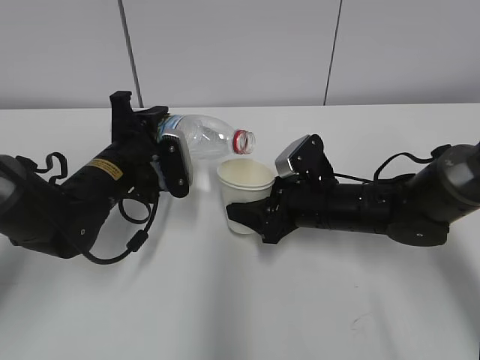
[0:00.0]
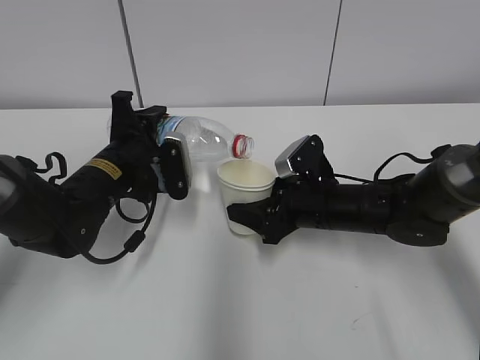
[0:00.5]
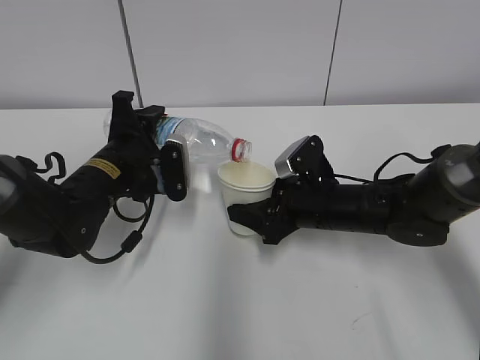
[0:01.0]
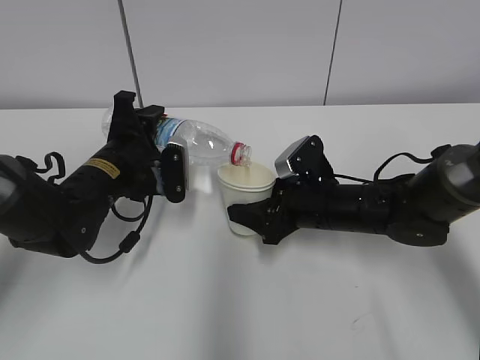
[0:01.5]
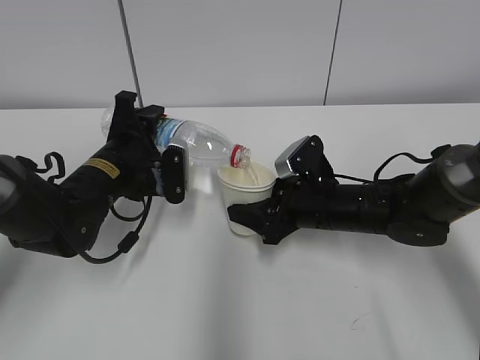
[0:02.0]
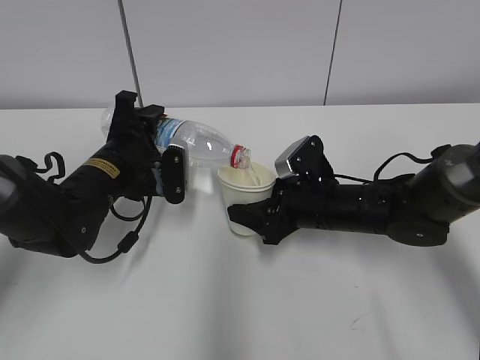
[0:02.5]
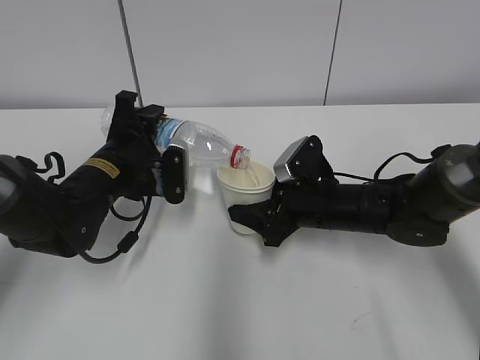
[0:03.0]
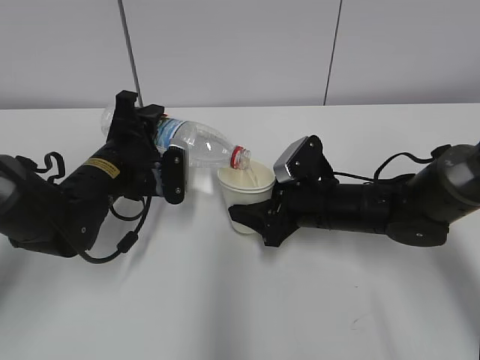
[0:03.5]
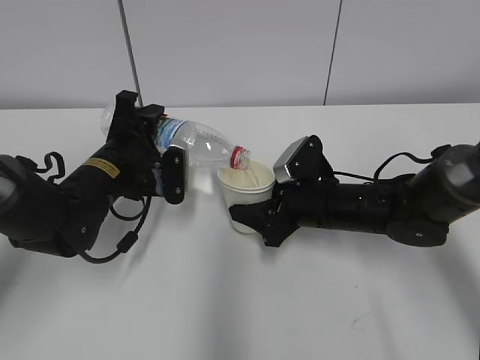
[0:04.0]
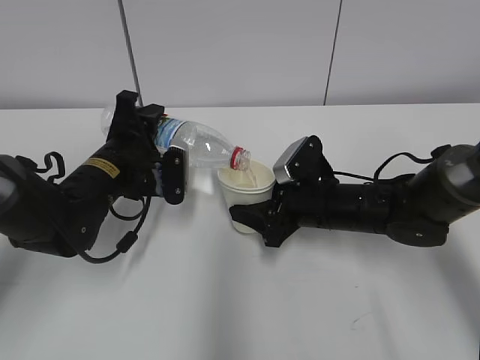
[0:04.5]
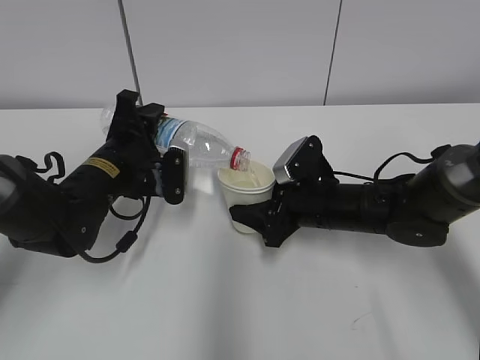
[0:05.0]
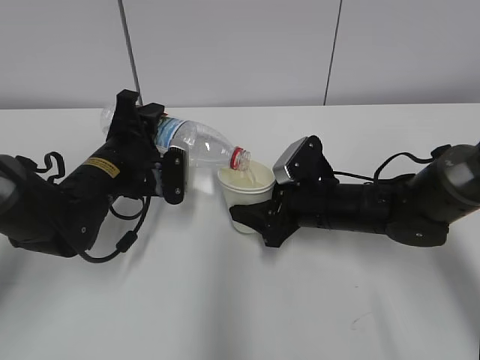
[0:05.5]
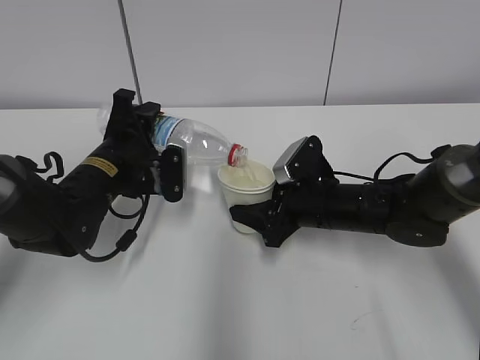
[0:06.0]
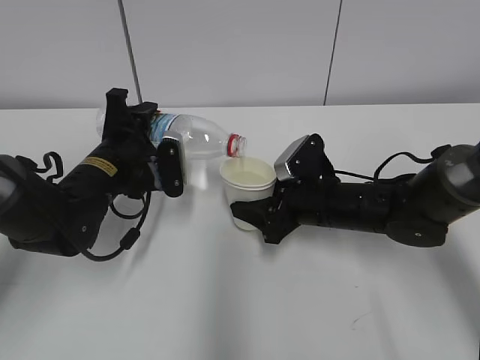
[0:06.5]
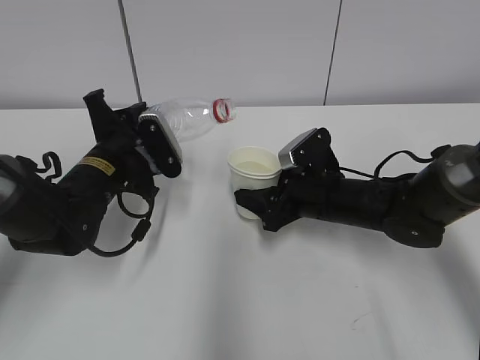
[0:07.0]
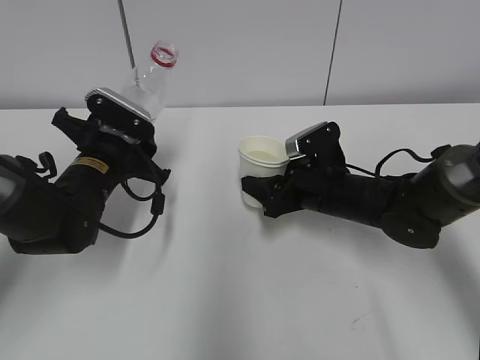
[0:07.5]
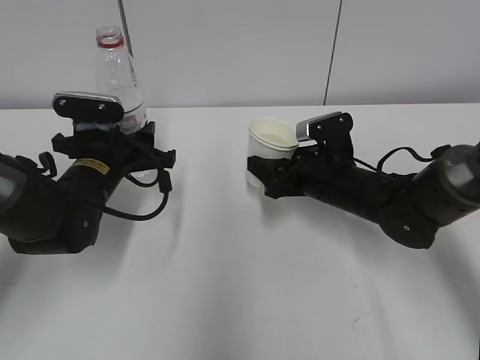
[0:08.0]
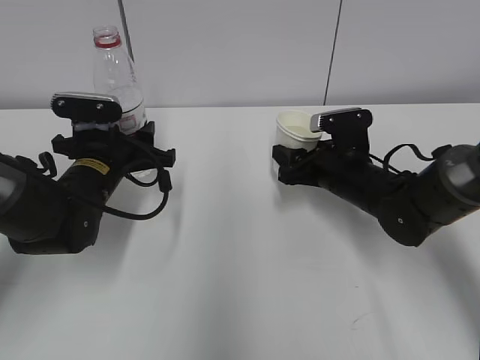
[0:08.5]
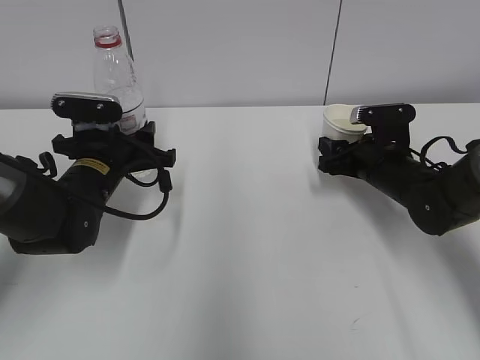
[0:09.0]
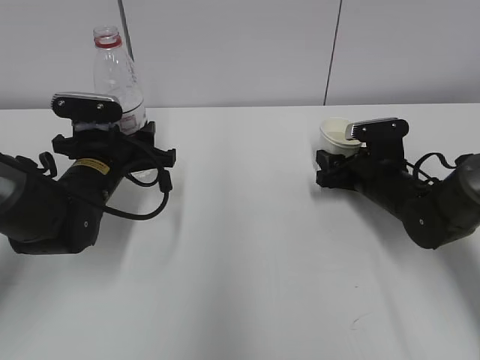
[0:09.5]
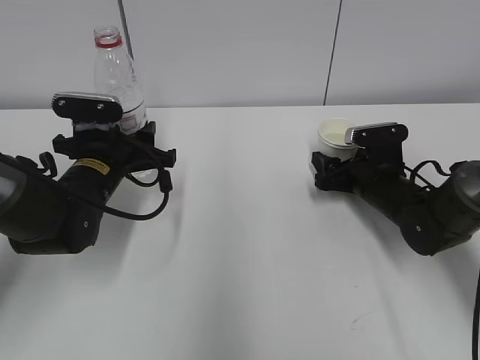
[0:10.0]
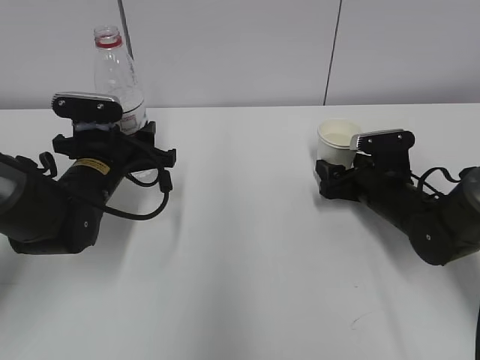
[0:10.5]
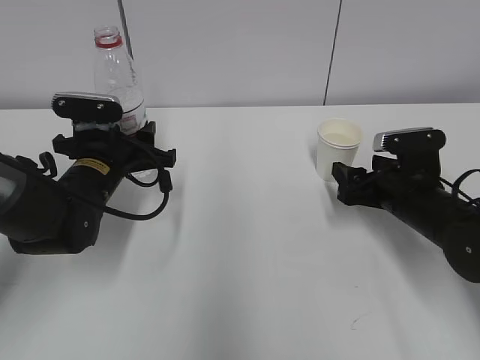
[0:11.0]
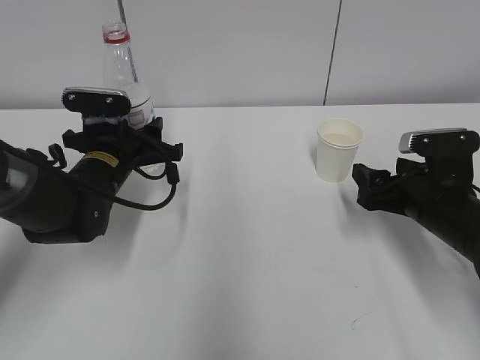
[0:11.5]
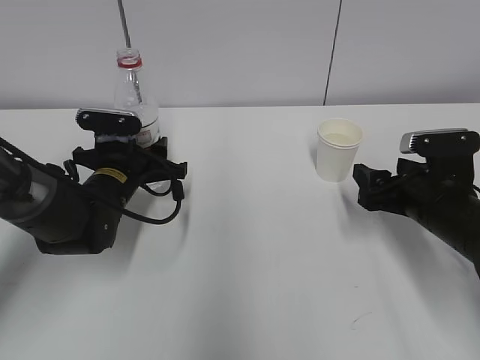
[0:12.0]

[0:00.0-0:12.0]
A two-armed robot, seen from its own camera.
Step, 0:00.0 to 0:03.0: Fill water with the right hand.
Step, 0:00.0 to 0:03.0: Pour water with the left hand.
Step, 0:06.5 to 0:08.5: Place the water bottle with the left hand.
0:00.0 to 0:04.0: The grippers make only small movements.
0:04.0 to 0:06.0: The two grippers keep their place.
0:08.0 to 0:10.0: The right gripper moves to the right, about 10 cm, and opens its fingers.
0:10.0 to 0:12.0: The right gripper moves backward and upward, roughly 10 cm.

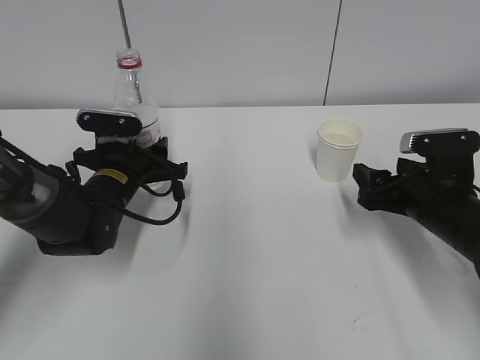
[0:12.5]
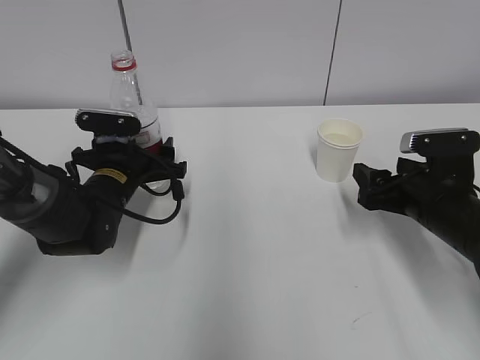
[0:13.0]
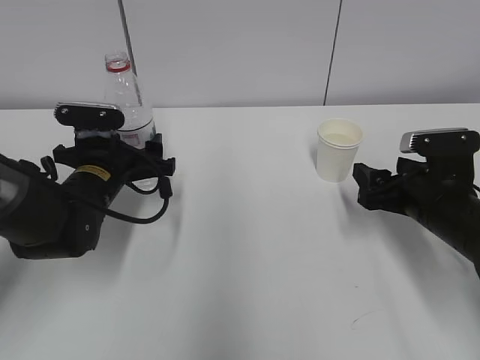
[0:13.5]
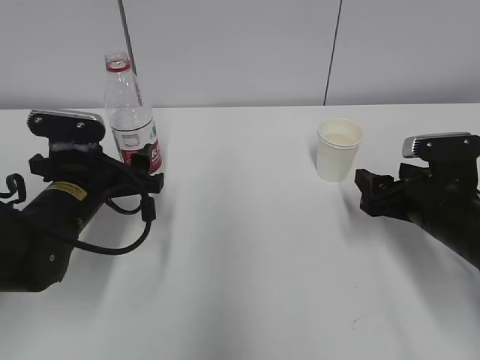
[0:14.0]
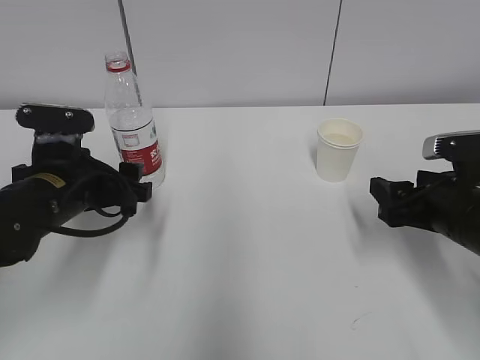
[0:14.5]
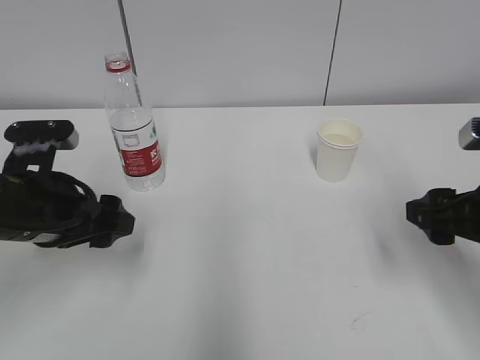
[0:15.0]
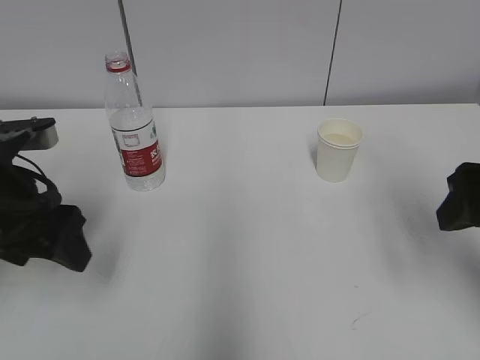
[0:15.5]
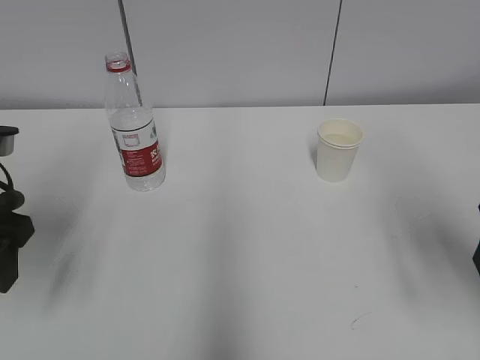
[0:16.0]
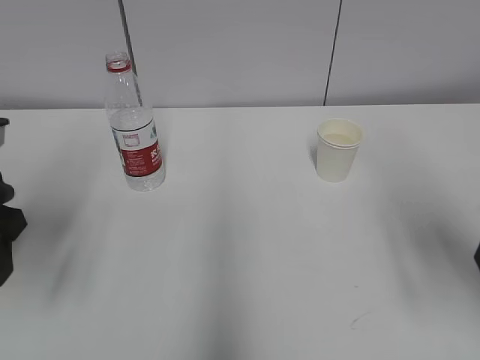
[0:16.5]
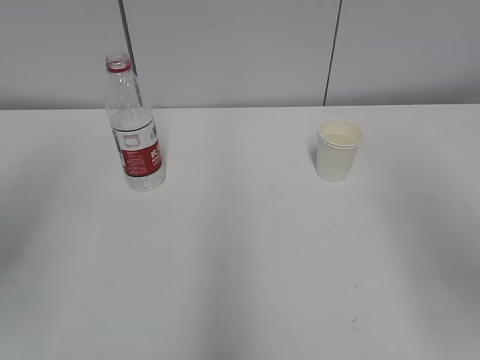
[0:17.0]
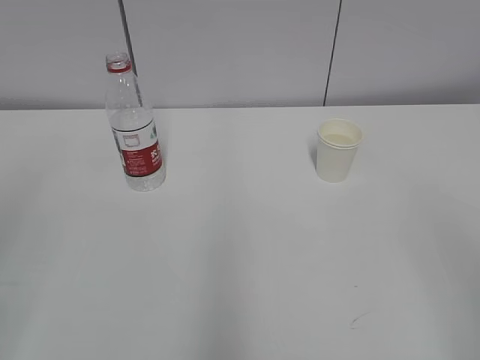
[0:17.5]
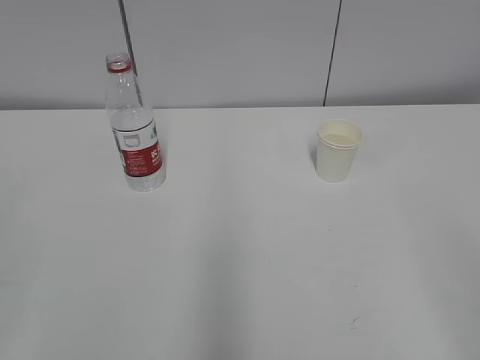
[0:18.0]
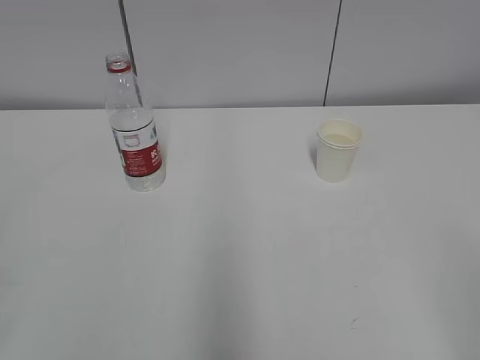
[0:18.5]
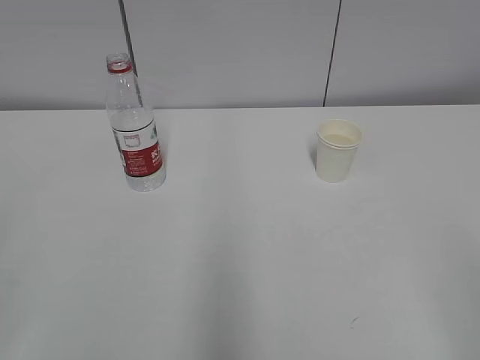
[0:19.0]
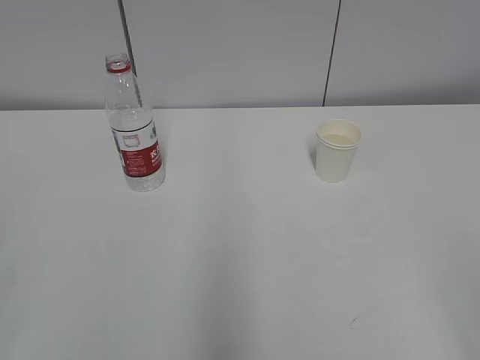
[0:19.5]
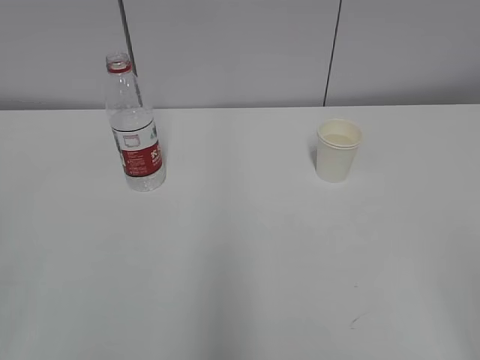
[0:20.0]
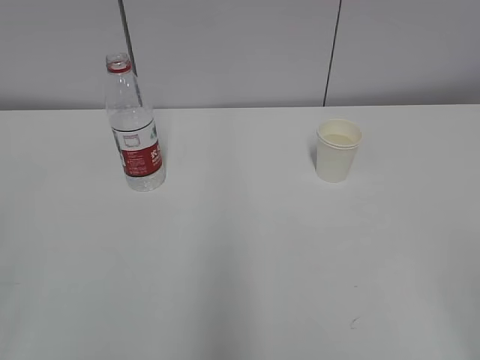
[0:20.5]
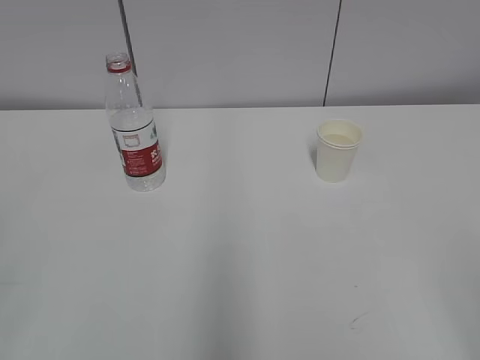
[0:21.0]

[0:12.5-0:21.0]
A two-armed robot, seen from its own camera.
0:12.5 to 0:14.5: The left gripper moves backward and upward, some 10 cm, and opens its fingers.
0:14.5 to 0:16.5: The right gripper is displaced upward and backward by about 15 cm. Meanwhile the left gripper shifts roughly 15 cm upward, to the left and backward.
0:16.5 to 0:19.0: Both grippers travel together backward, some 20 cm.

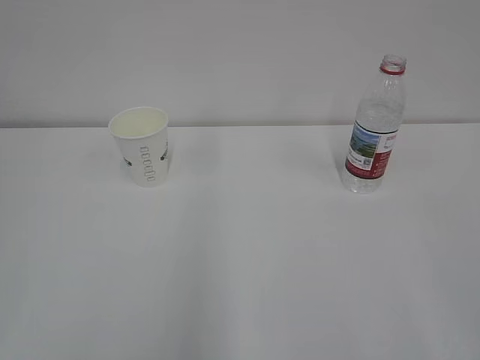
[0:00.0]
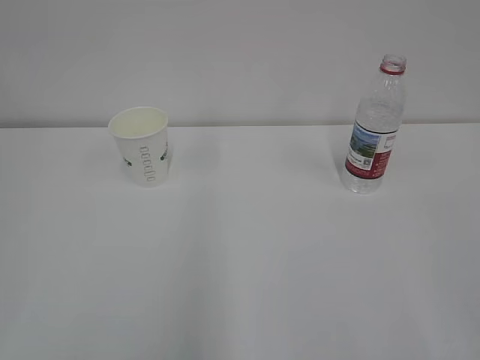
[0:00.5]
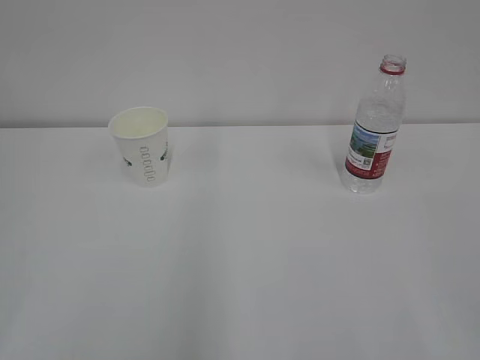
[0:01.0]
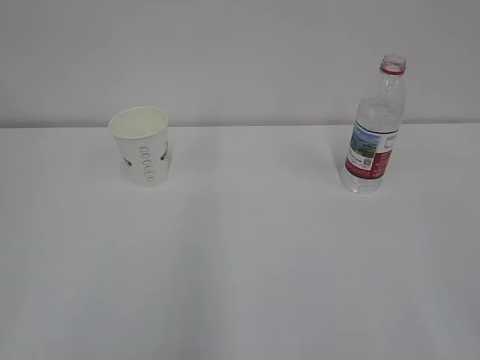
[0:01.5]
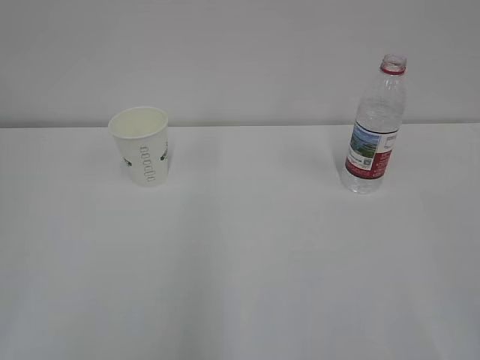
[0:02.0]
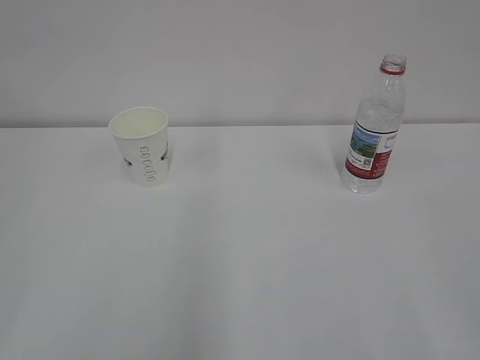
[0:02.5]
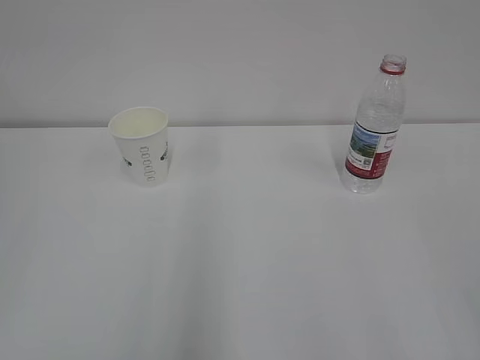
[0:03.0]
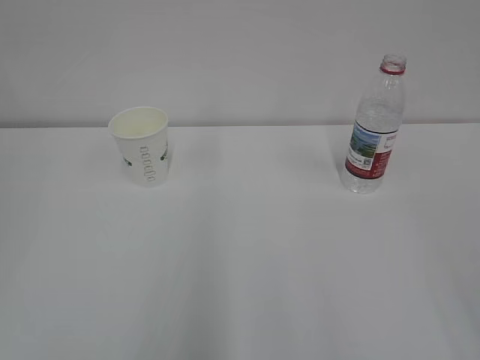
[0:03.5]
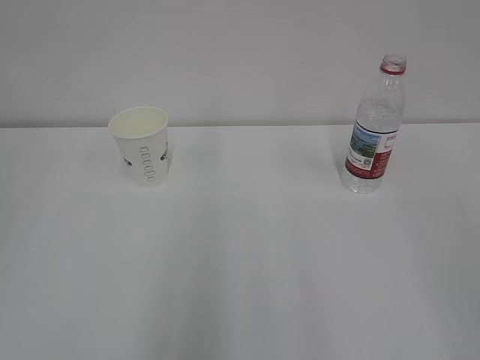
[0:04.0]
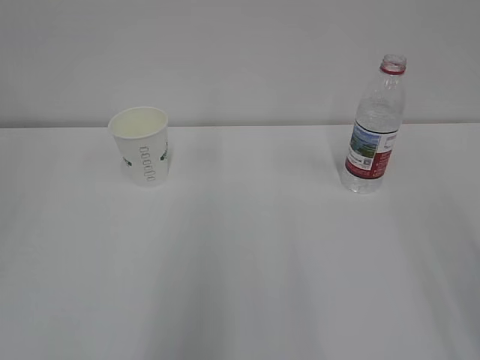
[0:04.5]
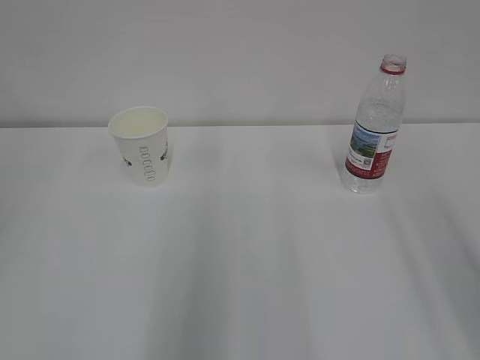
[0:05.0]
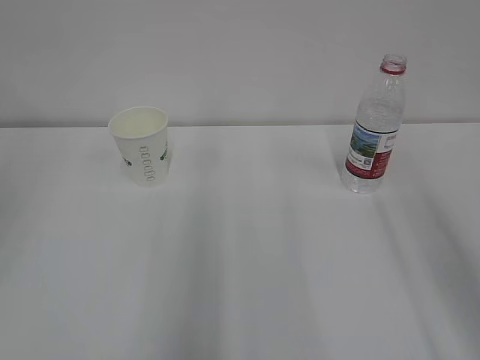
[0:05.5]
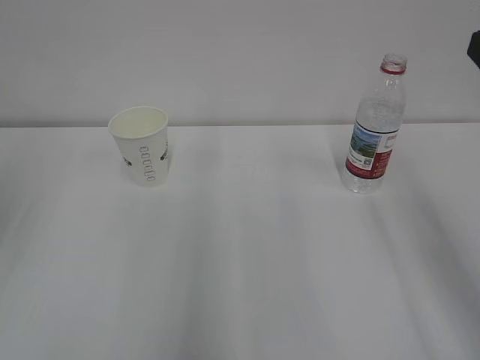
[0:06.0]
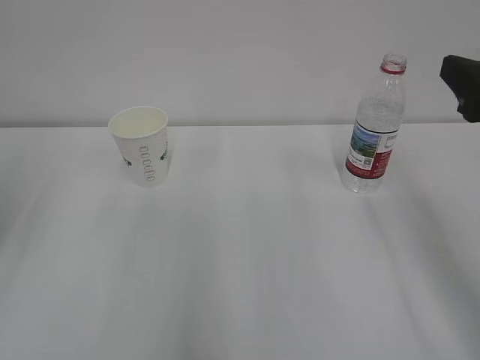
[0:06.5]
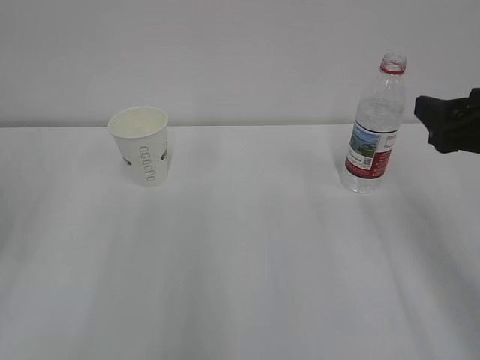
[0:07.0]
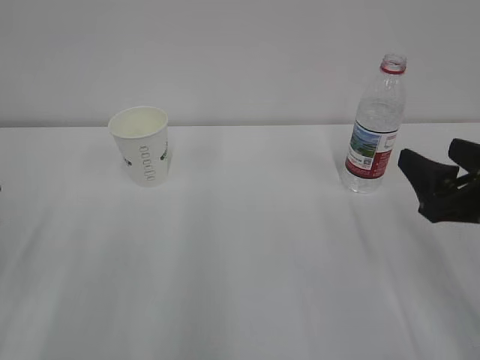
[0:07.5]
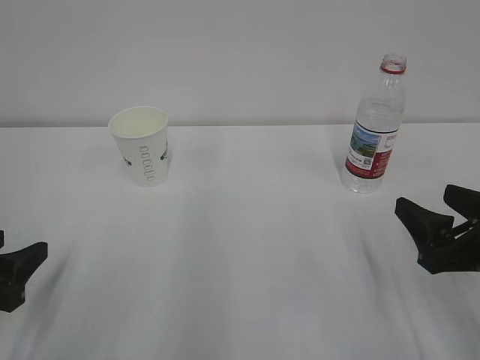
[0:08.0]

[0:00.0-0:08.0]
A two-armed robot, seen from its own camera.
0:06.0 to 0:08.0: The two grippers go roughly 15 cm downward.
